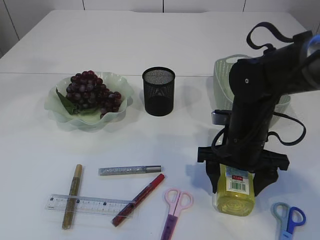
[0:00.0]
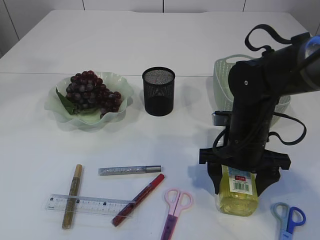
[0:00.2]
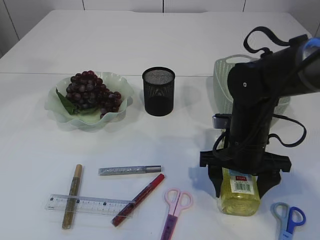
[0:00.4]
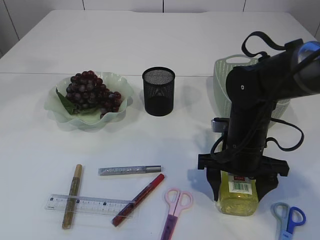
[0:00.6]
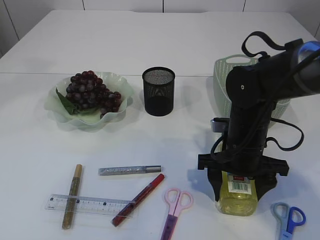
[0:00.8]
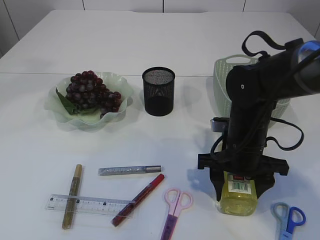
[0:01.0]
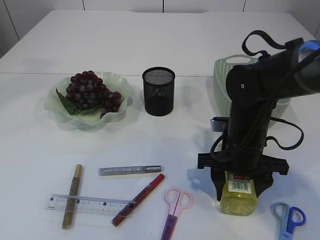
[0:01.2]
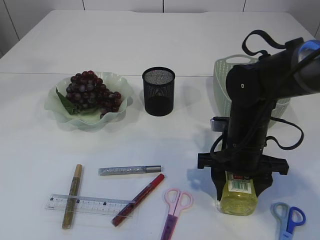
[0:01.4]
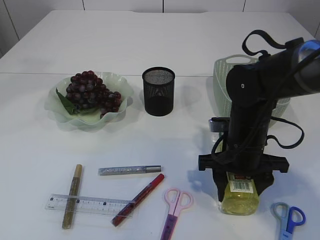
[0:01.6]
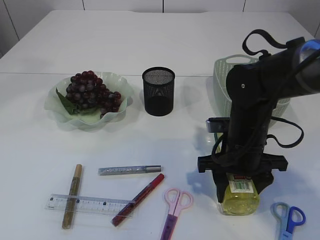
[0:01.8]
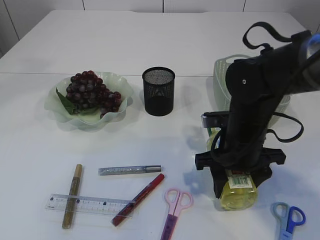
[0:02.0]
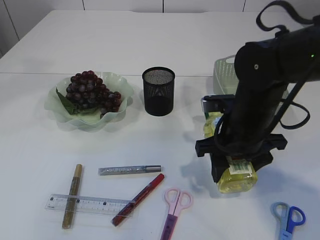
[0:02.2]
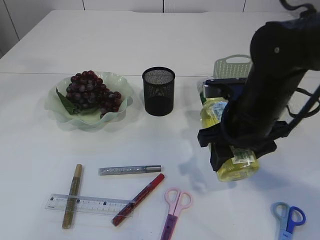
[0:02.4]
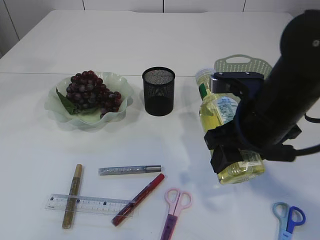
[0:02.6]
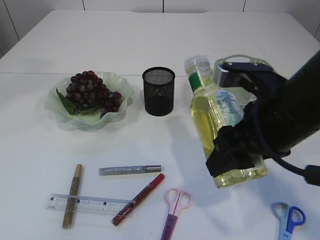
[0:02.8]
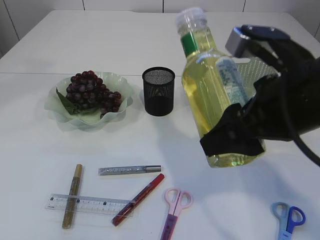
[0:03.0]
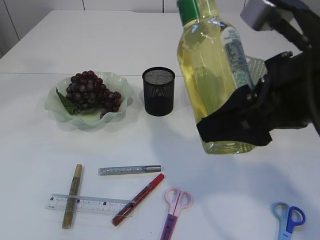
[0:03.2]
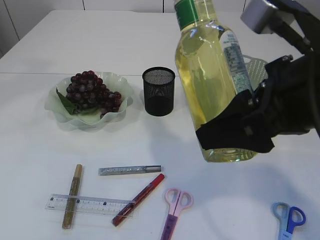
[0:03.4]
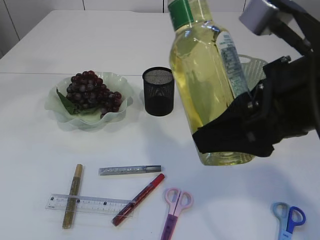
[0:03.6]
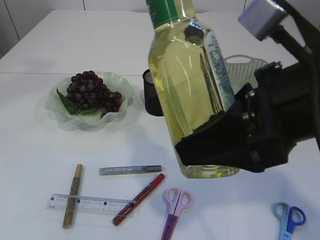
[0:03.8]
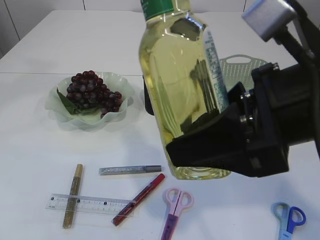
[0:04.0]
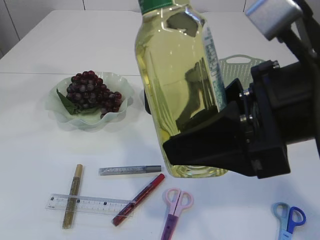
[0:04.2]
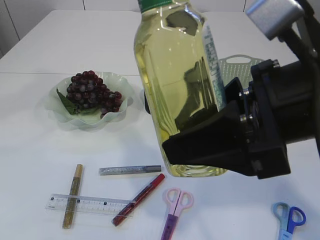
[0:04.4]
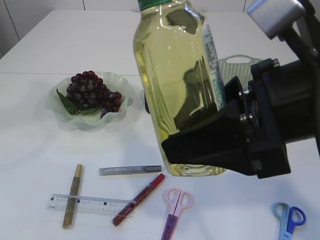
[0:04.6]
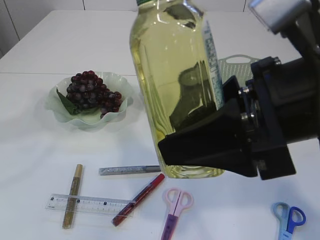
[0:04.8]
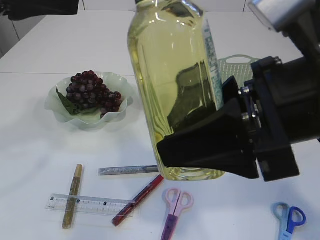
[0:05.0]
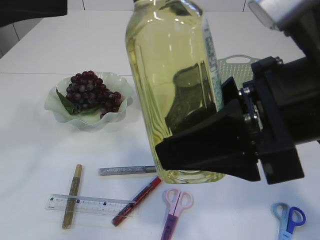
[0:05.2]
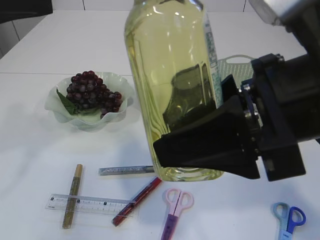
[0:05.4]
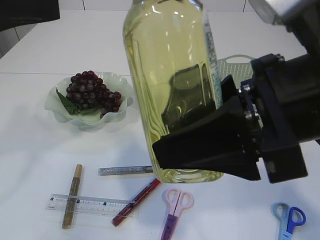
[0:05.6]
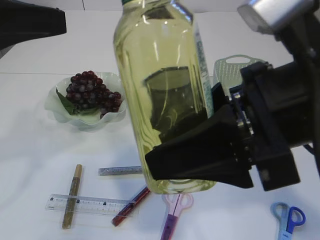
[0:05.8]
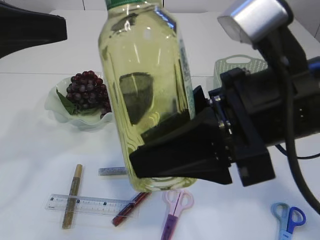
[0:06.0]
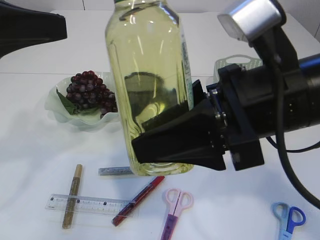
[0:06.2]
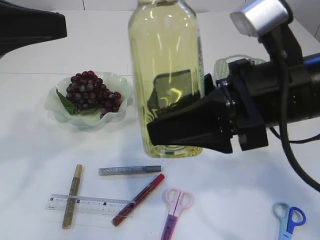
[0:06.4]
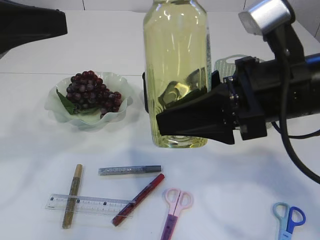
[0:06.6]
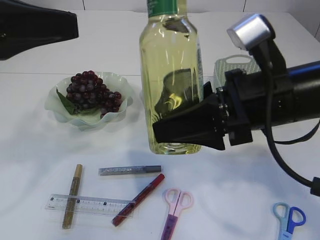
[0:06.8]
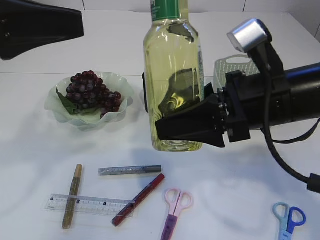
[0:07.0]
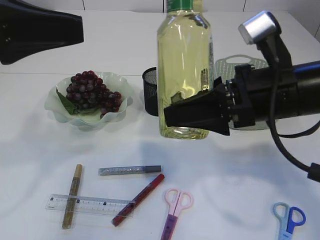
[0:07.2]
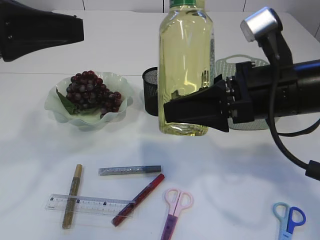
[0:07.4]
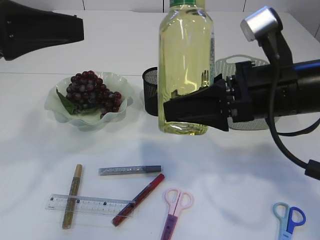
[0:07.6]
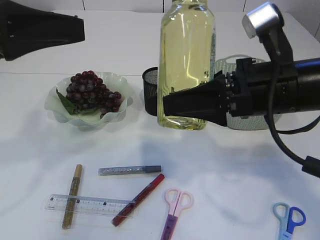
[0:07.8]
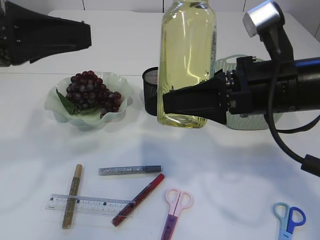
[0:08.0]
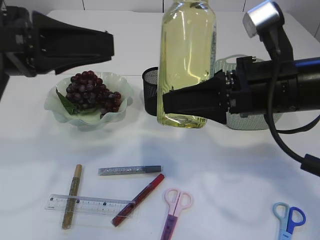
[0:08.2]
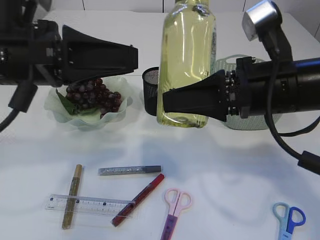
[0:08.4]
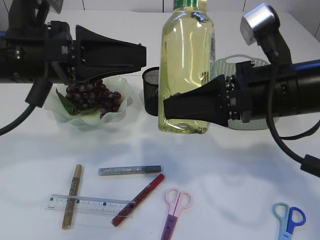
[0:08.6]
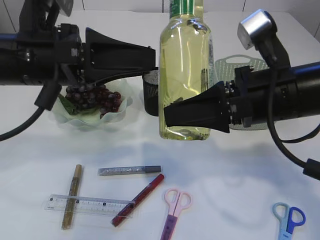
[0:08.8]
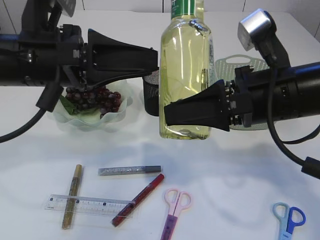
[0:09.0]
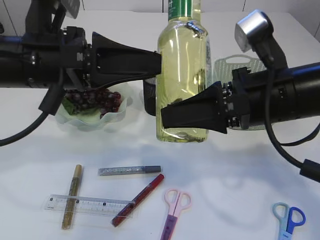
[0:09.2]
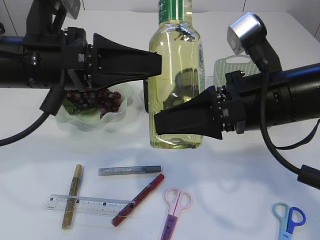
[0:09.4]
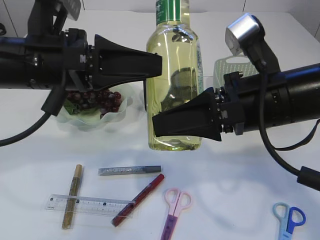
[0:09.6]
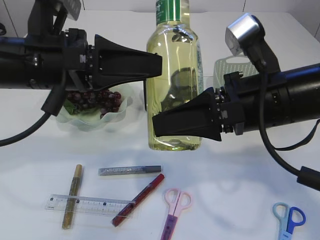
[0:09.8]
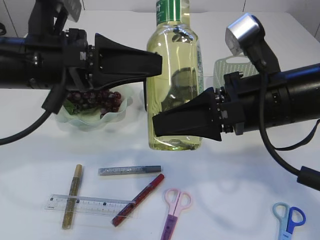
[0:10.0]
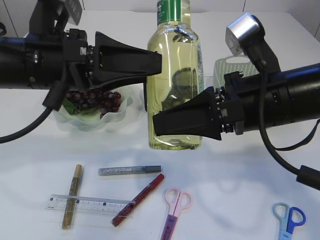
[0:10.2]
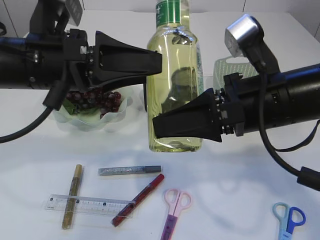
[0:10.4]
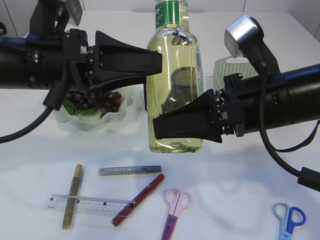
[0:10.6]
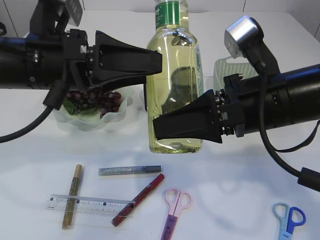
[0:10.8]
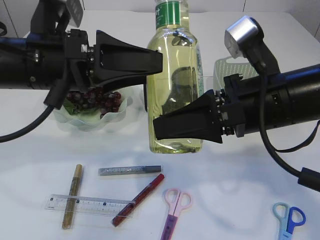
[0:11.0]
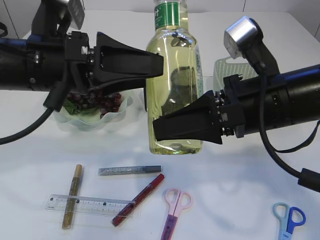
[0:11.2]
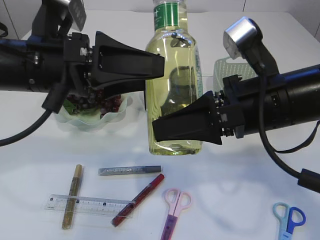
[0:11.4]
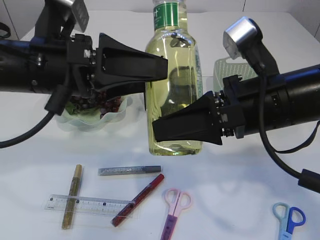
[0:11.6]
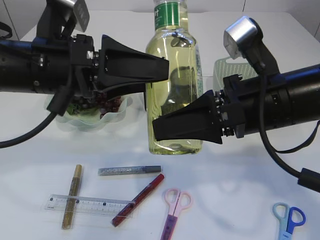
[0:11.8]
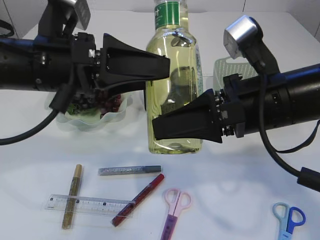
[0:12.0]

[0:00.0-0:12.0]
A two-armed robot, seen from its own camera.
Step, 0:00.0 to 0:02.4: Pick up the bottle with the right arm.
0:00.0 to 0:01.6: The grippers make only small movements.
0:01.6 to 0:03.0: The right gripper is displaced upward and backward by some 20 cm.
0:04.4 to 0:06.0: The left gripper heads downward and backward, covering some 15 cm.
0:06.0 to 0:07.6: The right gripper travels forward by roughly 5 cm.
0:07.6 to 0:09.0: The left gripper heads to the right and downward, covering some 10 cm, and opens its fingers.
0:10.4 to 0:12.0: Both grippers stay put.

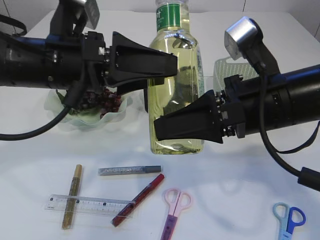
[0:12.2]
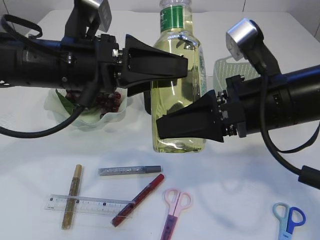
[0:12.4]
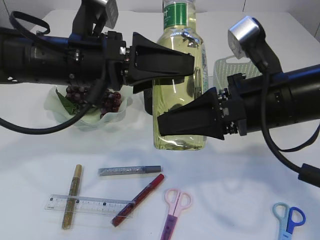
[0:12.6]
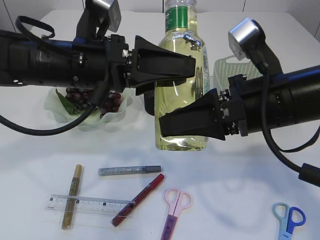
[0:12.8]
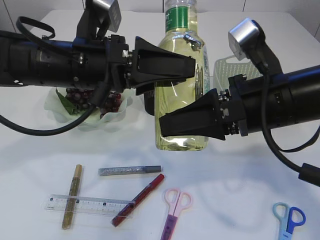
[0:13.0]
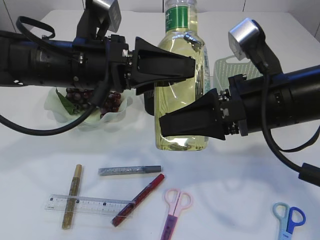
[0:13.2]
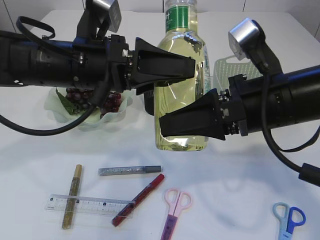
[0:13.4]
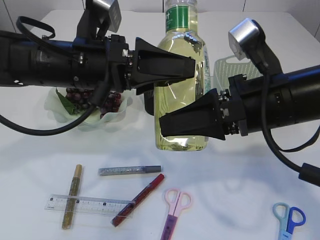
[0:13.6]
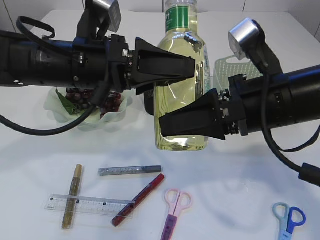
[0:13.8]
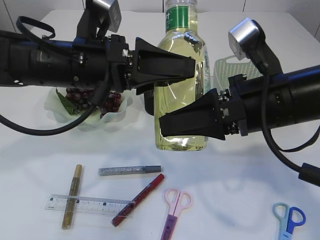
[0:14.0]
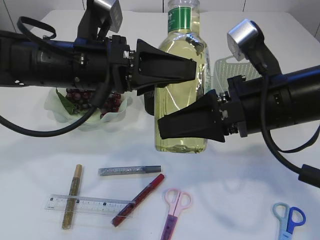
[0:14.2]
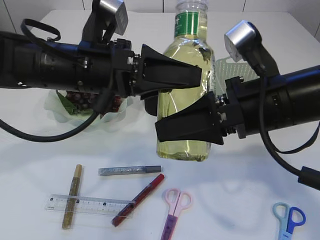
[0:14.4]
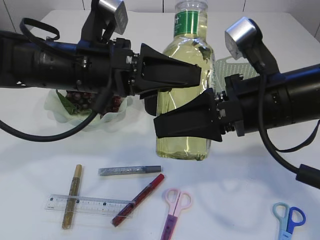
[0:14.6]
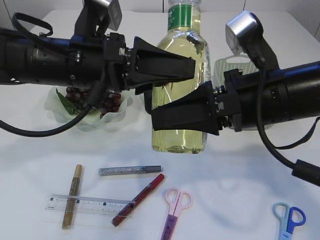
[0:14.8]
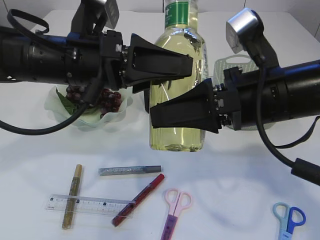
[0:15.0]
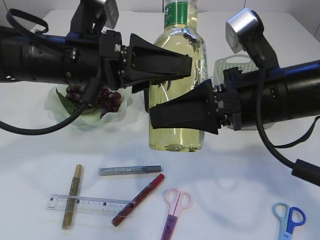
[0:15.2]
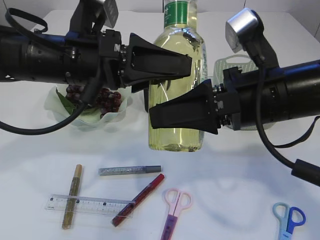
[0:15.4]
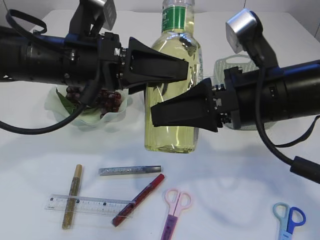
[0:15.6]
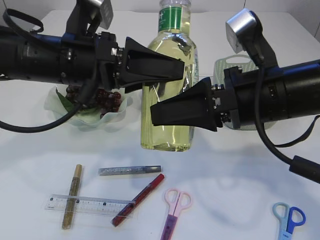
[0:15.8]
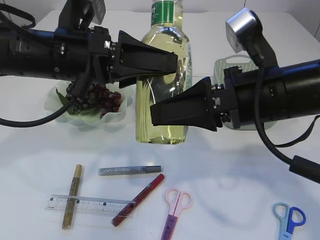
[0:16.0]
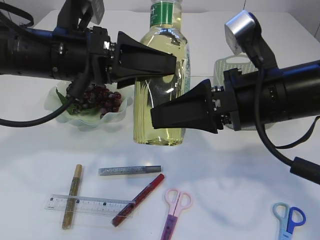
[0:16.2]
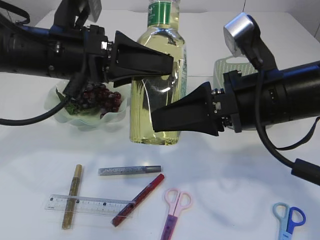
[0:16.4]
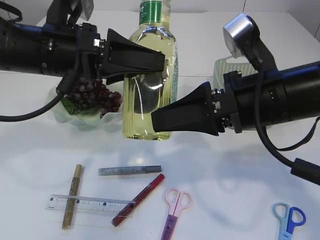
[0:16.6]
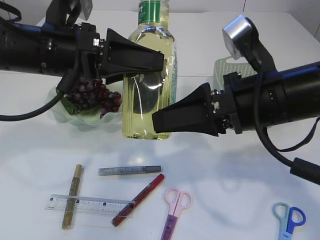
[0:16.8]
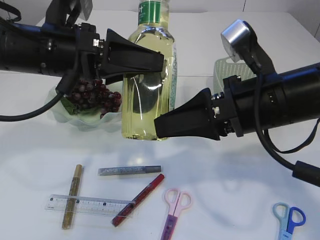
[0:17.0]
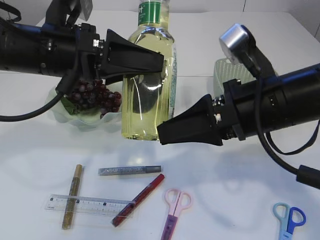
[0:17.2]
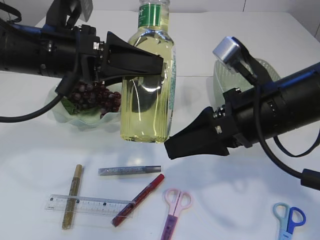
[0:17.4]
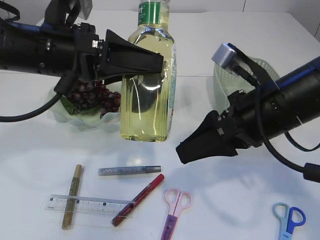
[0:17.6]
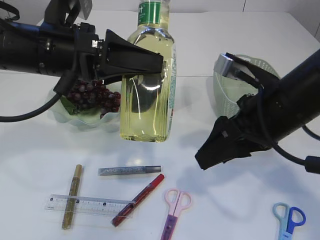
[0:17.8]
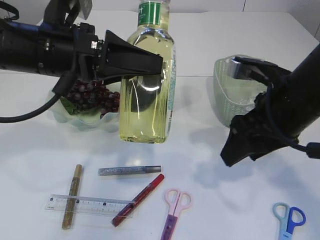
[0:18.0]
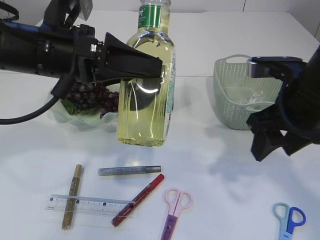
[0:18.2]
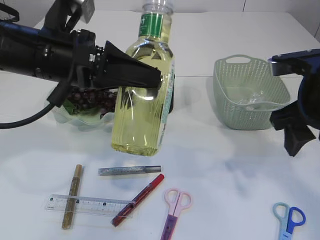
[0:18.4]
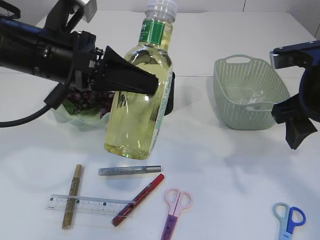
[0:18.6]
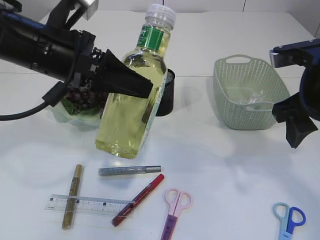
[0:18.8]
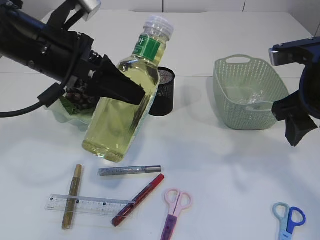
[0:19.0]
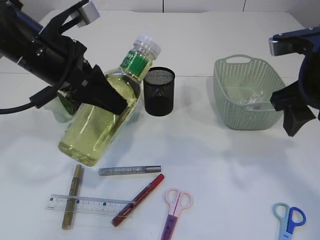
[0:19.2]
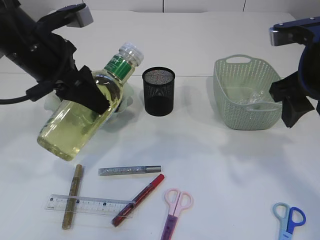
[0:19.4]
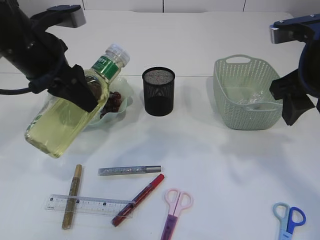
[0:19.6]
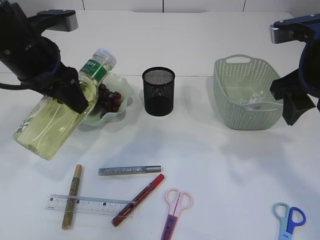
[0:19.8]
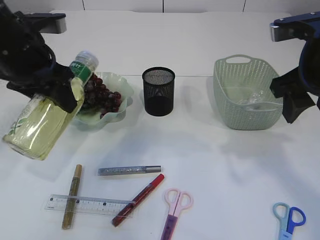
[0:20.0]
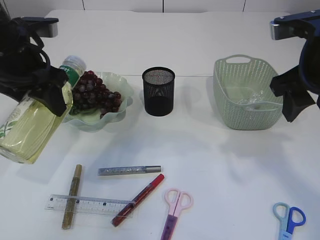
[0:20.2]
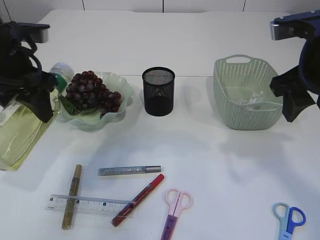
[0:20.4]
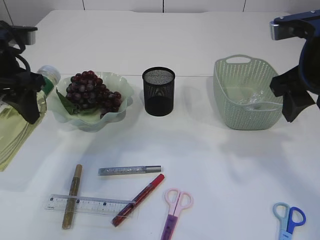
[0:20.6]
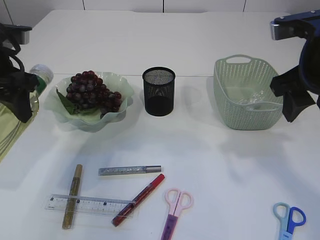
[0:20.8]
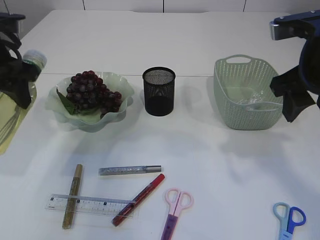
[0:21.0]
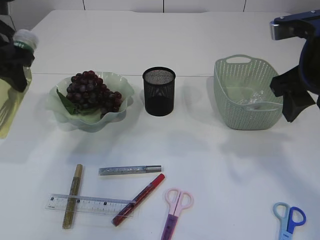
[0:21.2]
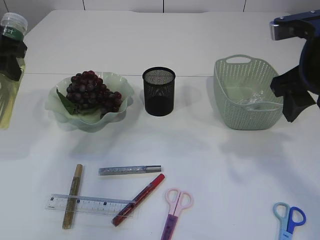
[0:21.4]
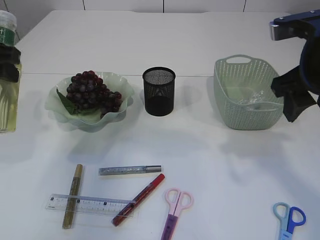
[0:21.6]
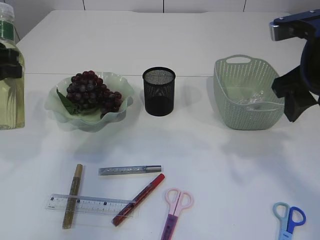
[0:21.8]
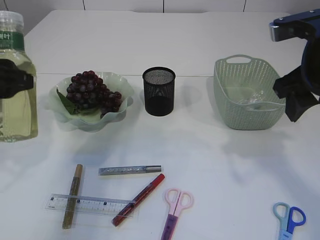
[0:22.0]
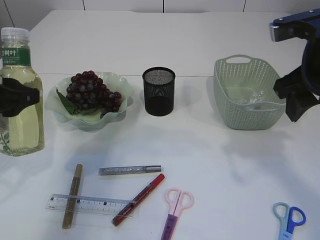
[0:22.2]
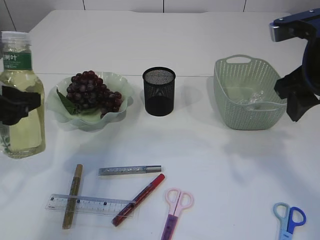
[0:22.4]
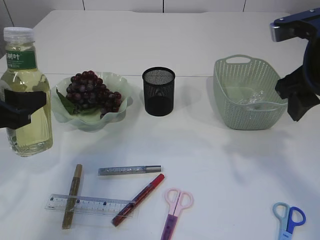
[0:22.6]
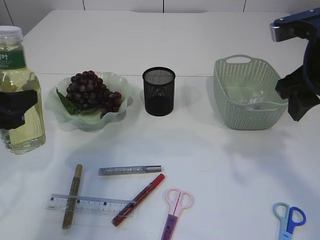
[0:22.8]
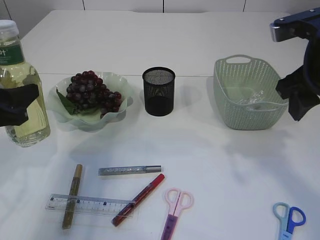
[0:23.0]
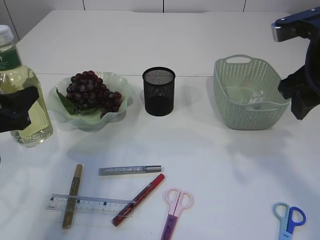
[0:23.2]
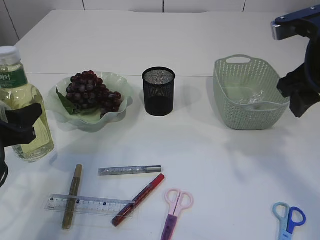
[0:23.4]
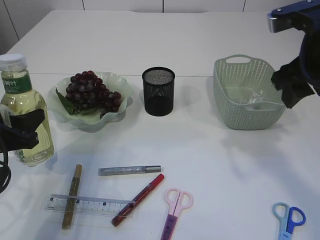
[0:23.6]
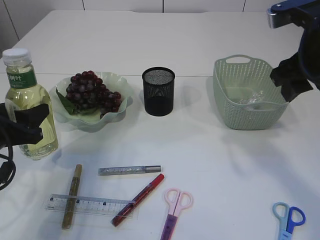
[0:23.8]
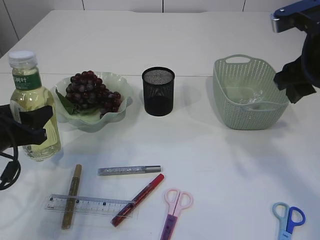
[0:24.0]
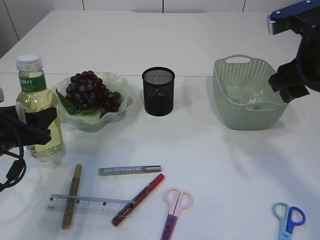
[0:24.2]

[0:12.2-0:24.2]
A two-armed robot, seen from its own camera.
Step, 0:12.2 to 0:17.8: transfer the bottle to the left arm.
0:12.2 to 0:13.8: The grippers move only a little.
0:13.8 to 0:15.2: Neither gripper changes place.
0:16.6 to 0:18.2: The right gripper shifts some 5 cm to the right.
0:18.2 to 0:19.8: The right gripper ends up some 5 cm from where it was. Meanwhile the left gripper heads to the left, covering about 5 cm.
0:19.8 to 0:21.2: The left gripper is displaced to the left by approximately 5 cm.
0:21.2 to 0:22.6: The left gripper is displaced backward and downward by roughly 10 cm.
0:22.6 to 0:24.2: The left gripper is displaced downward by approximately 10 cm.
